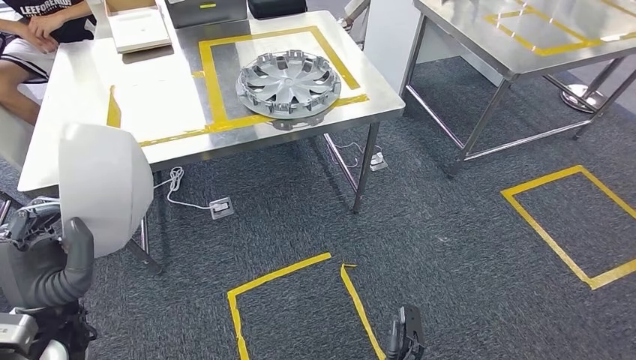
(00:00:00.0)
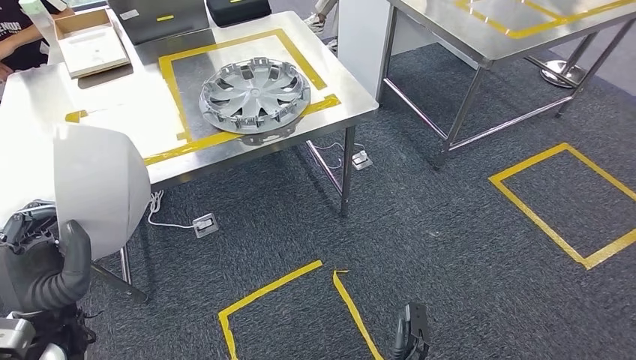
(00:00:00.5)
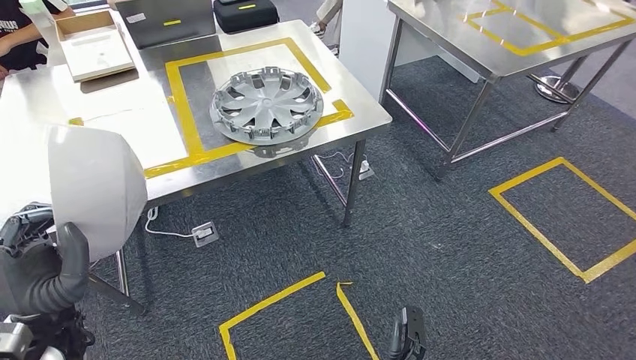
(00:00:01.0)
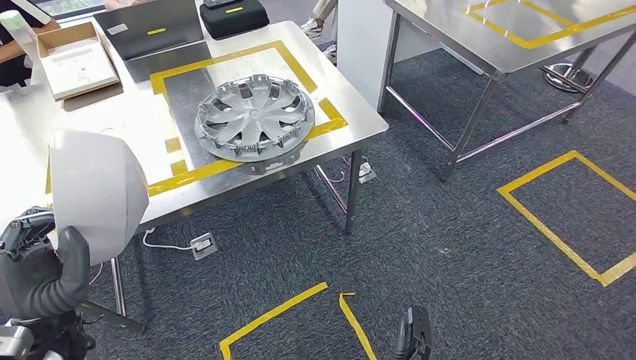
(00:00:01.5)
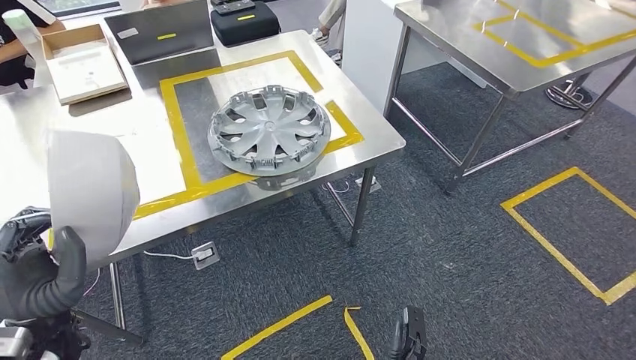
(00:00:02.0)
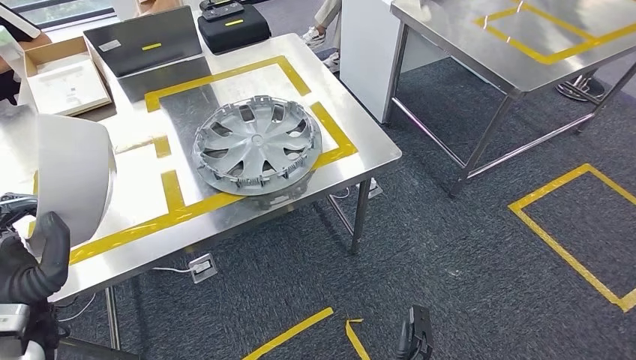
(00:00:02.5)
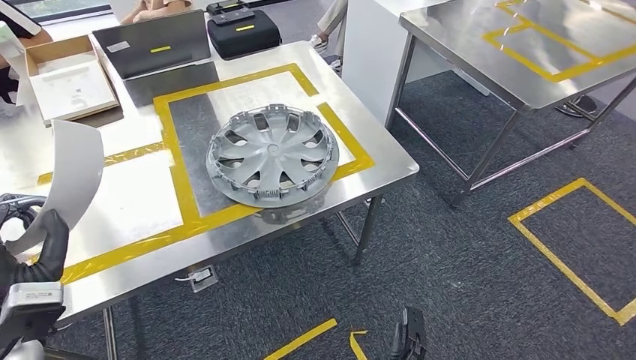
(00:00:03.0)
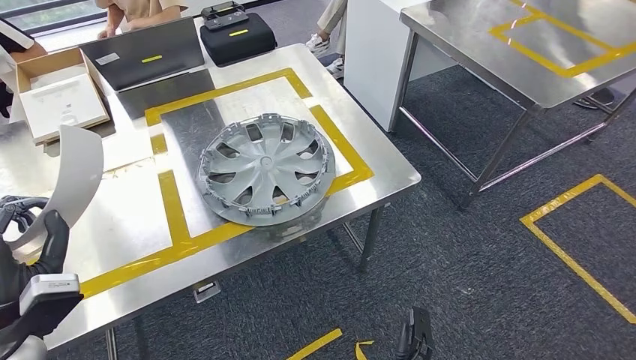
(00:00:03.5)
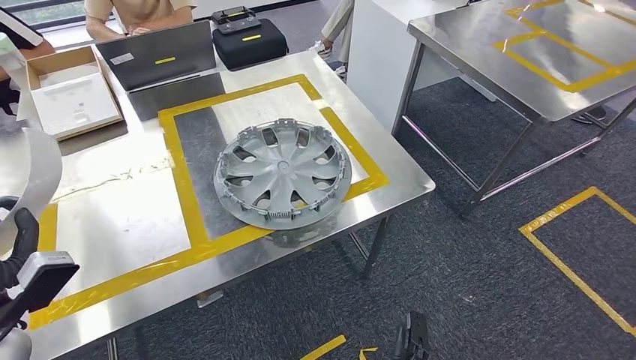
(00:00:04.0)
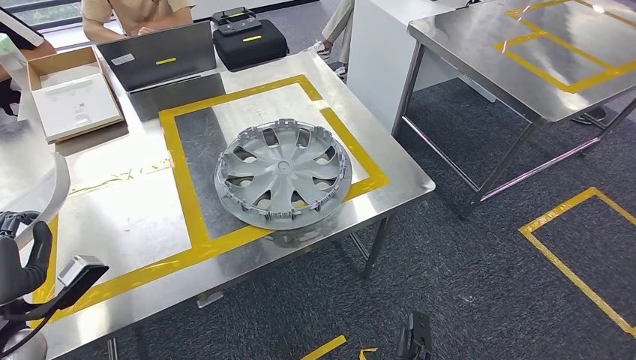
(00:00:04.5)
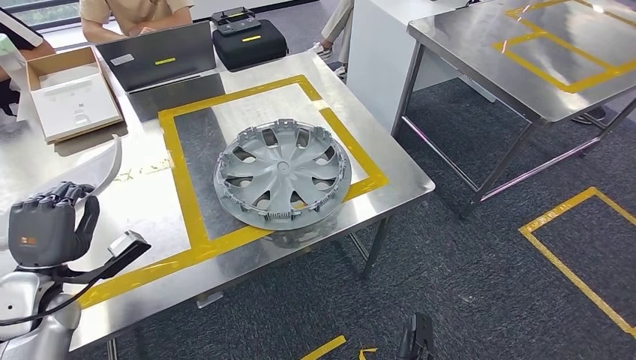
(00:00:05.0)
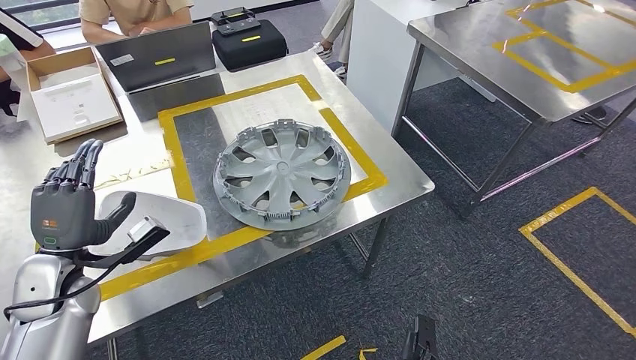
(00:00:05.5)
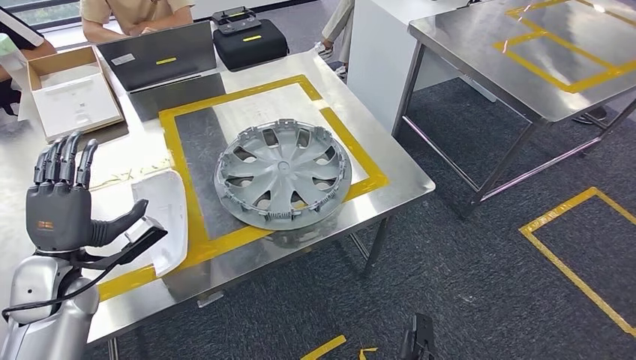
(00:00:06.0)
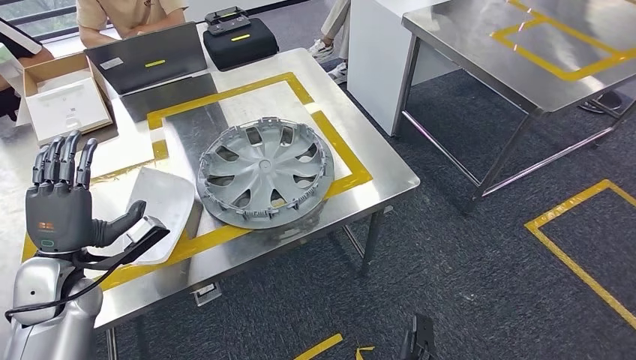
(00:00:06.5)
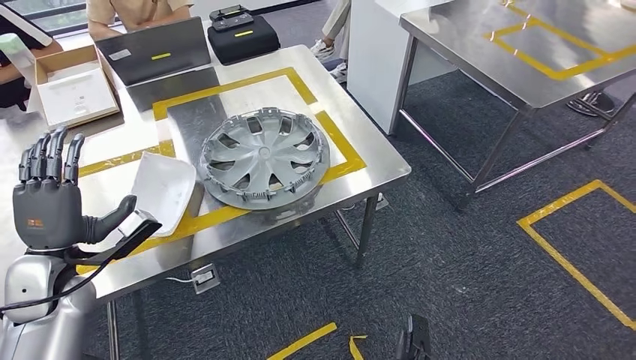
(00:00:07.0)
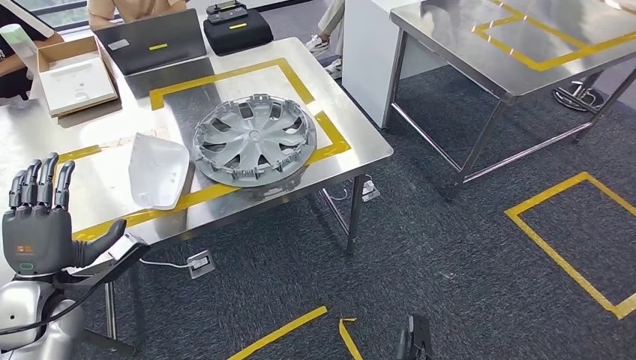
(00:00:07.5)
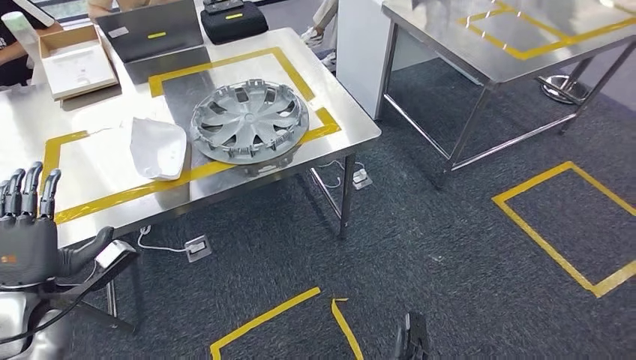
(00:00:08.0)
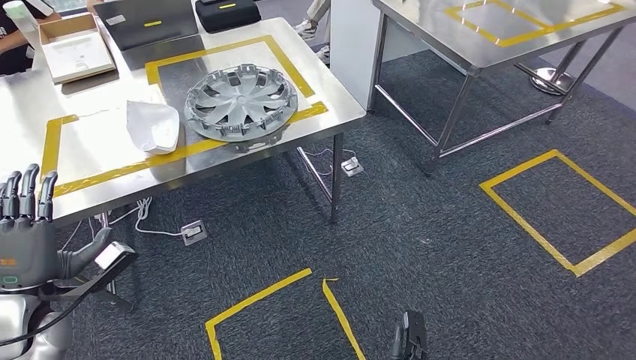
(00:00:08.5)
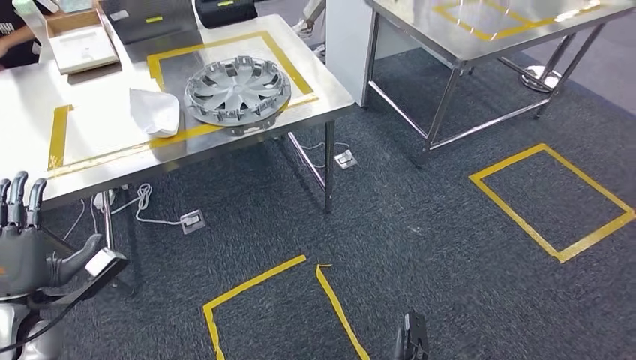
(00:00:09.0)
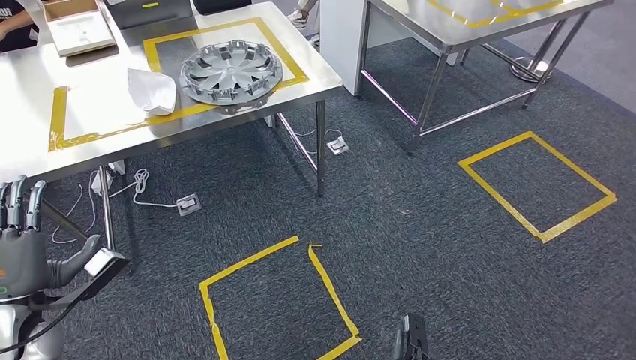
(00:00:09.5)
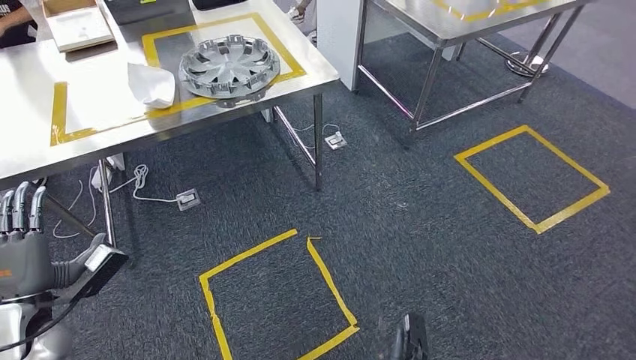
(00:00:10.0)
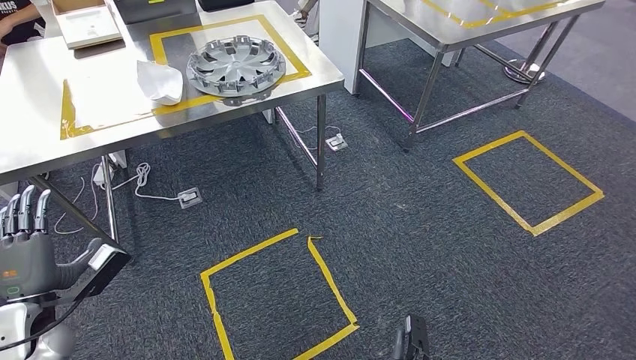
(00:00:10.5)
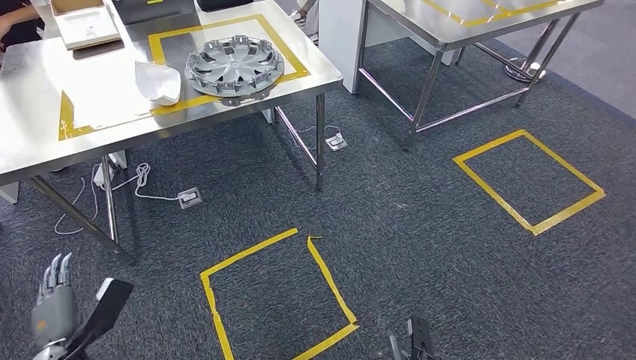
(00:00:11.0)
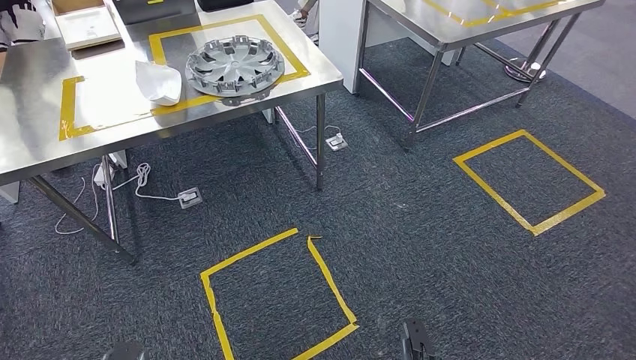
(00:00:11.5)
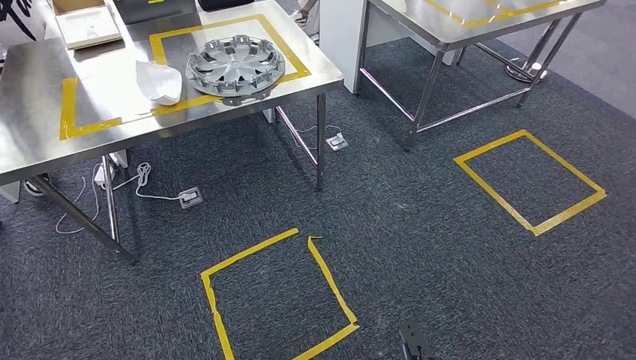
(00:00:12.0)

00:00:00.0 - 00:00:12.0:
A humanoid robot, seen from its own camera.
Step, 00:00:00.0 - 00:00:02.5: Move the small parts to the workbench.
Step, 00:00:03.0 - 00:00:05.5: Insert the small parts into the corresponding slots on the workbench.
Step, 00:00:06.5 - 00:00:12.0: Return to the initial position at the workbench.
00:00:04.0 - 00:00:06.0: The left hand goes some 10 cm to the right.
